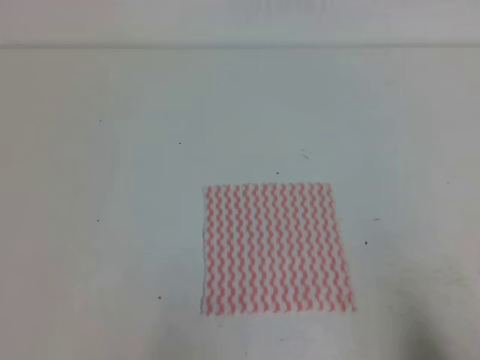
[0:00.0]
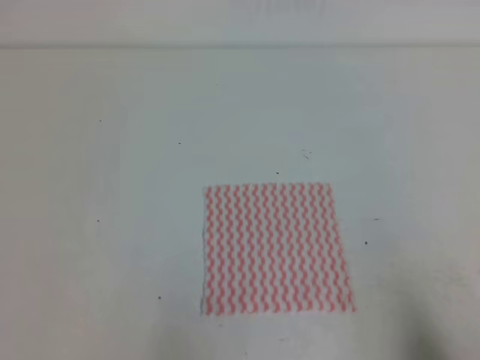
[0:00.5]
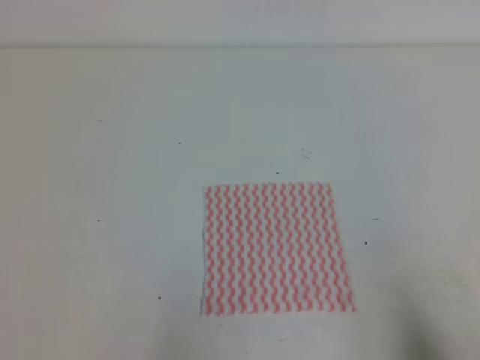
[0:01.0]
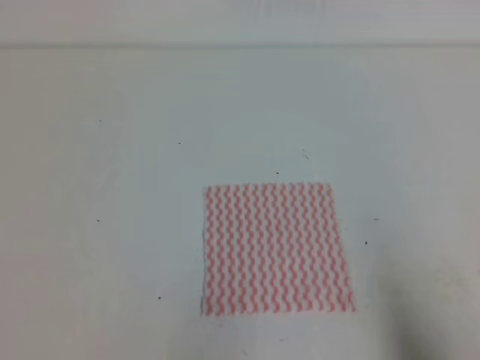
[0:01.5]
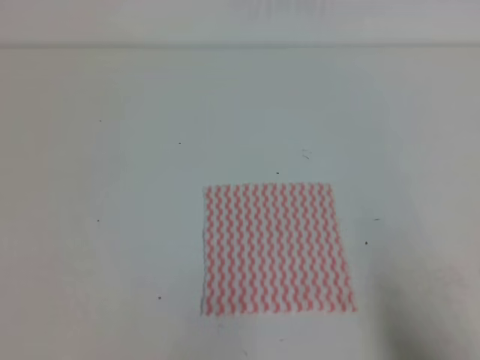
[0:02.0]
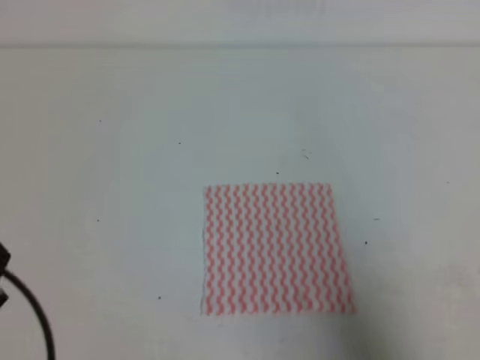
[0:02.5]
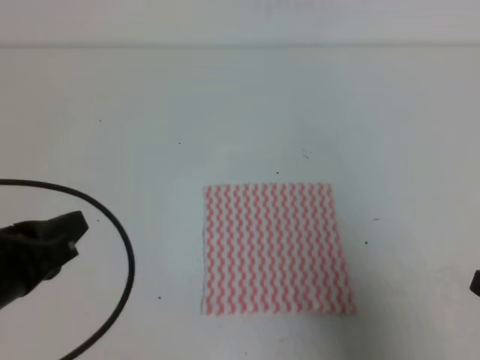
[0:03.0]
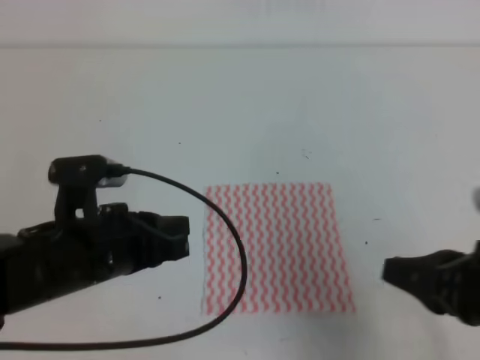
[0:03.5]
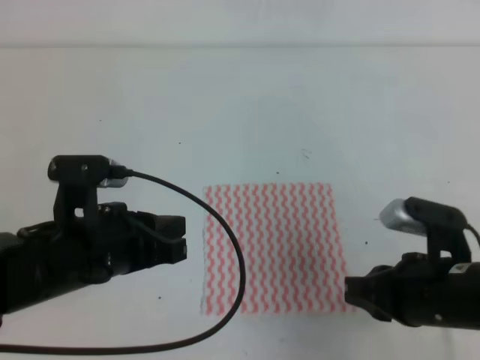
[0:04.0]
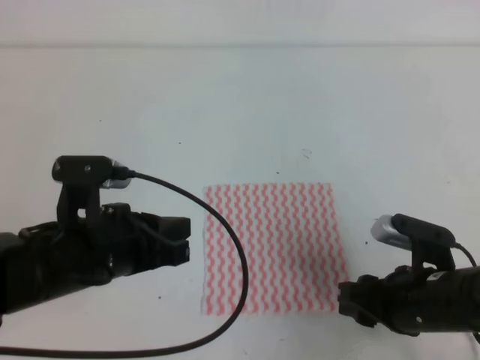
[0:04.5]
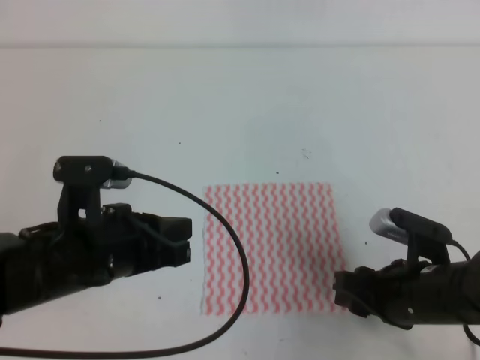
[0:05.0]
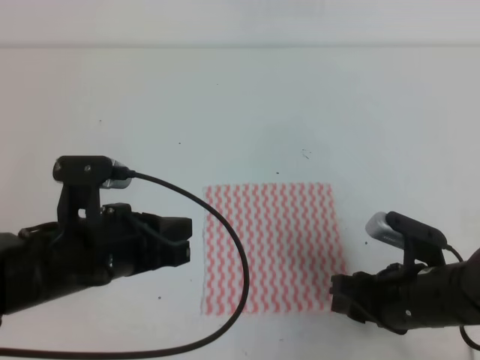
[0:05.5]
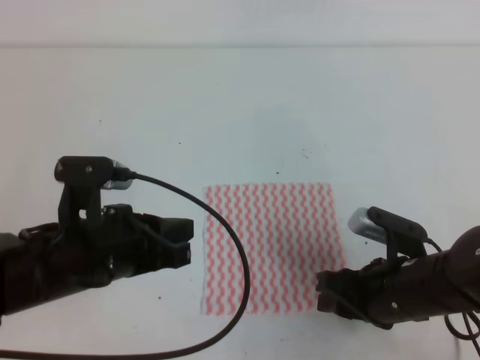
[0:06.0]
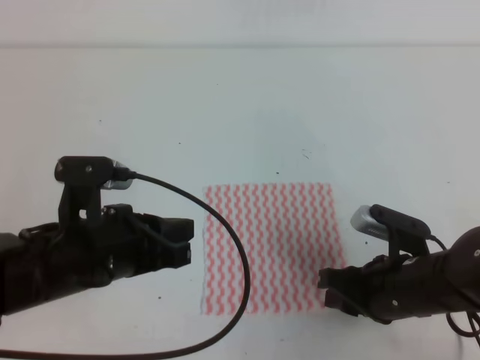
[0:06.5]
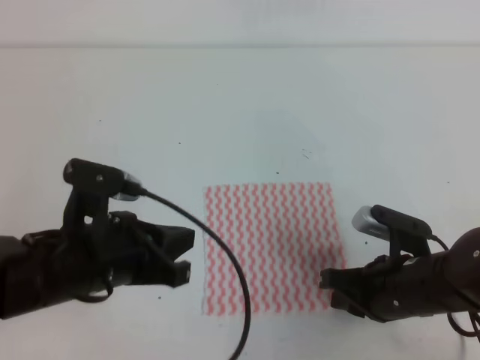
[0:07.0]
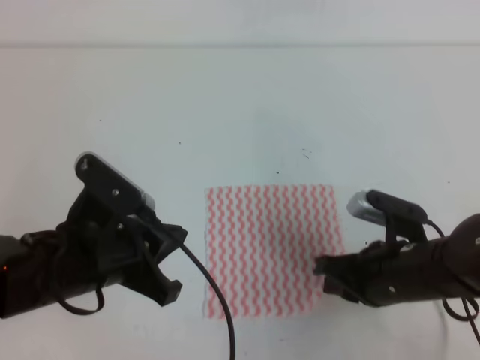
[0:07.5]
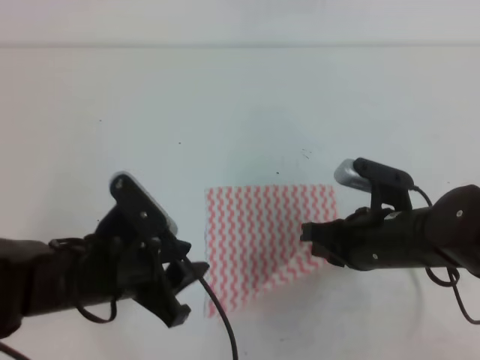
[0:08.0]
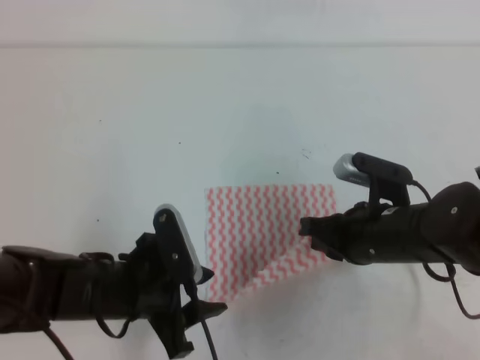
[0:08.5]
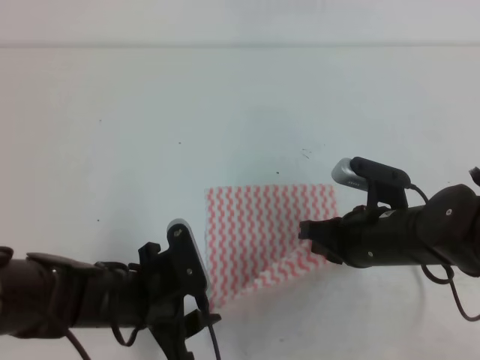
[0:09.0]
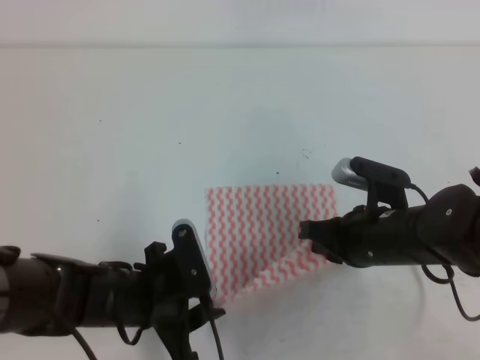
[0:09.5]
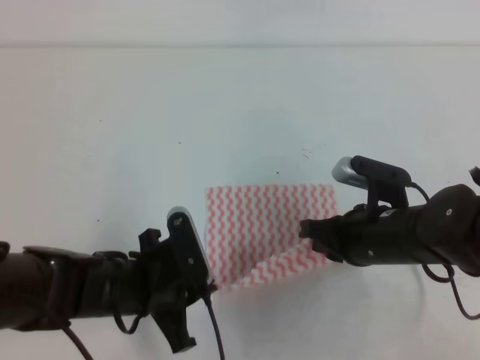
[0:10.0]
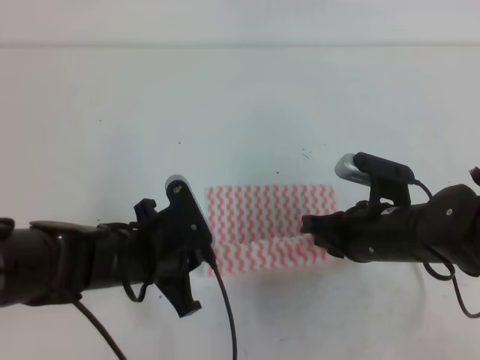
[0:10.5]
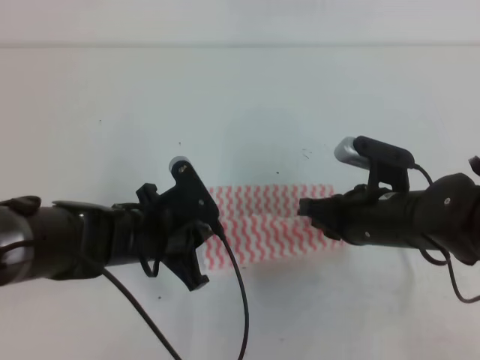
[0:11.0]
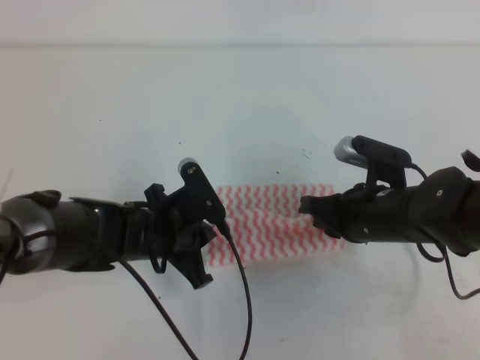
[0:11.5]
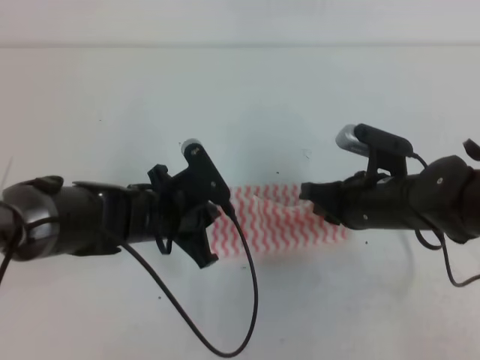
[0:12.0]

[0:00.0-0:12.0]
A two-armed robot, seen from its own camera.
0:02.0 to 0:04.0: The left gripper goes roughly 20 cm forward and to the right. The right gripper is displaced forward and to the left by about 20 cm.
0:04.0 to 0:06.0: The right gripper goes about 5 cm downward, and opens up.
0:06.0 to 0:08.0: The left gripper opens up. Meanwhile the right gripper shifts by about 5 cm, and closes its fingers.
0:08.0 to 0:10.0: The left gripper moves about 5 cm, and closes up.
0:10.0 to 0:12.0: The left gripper goes some 10 cm forward.

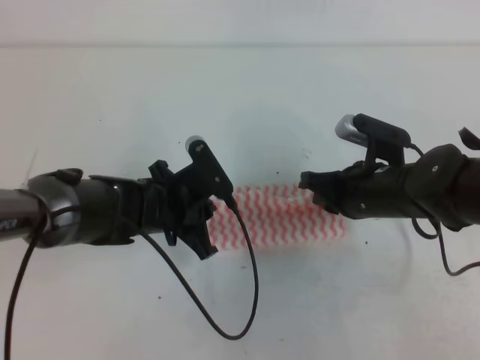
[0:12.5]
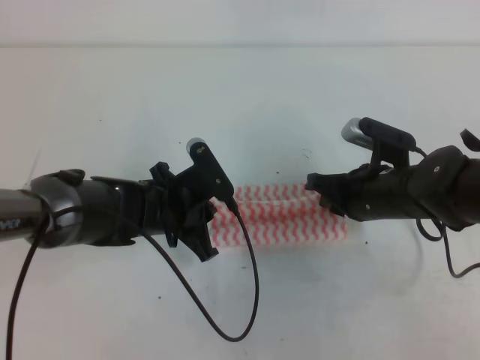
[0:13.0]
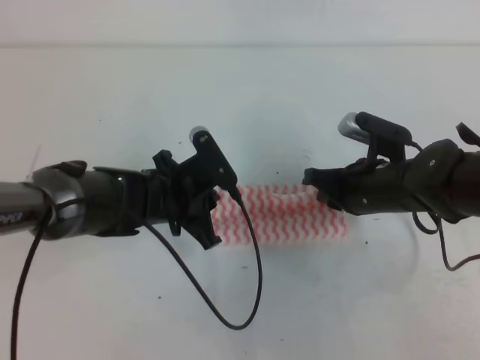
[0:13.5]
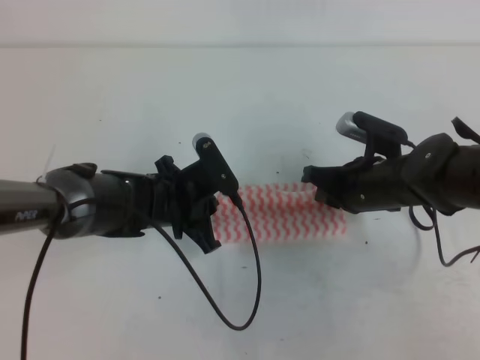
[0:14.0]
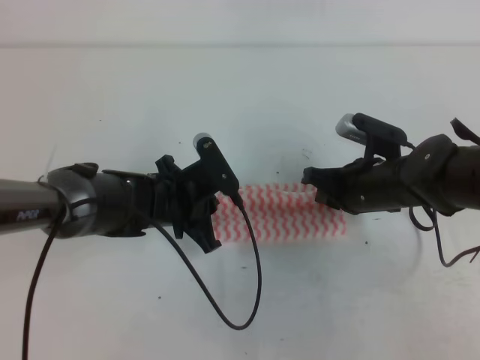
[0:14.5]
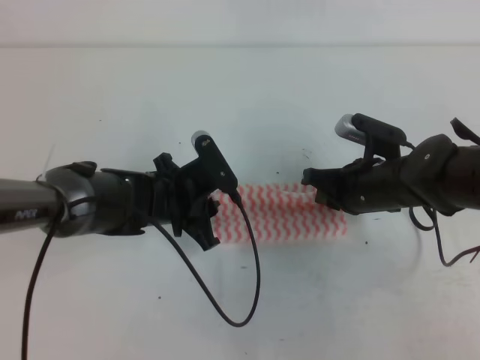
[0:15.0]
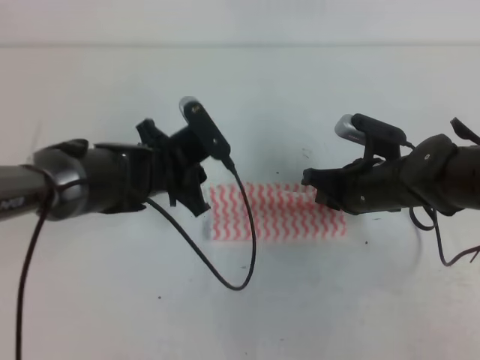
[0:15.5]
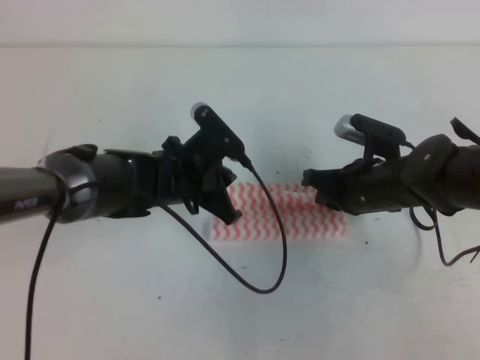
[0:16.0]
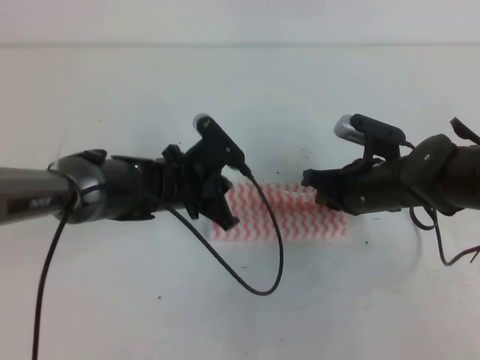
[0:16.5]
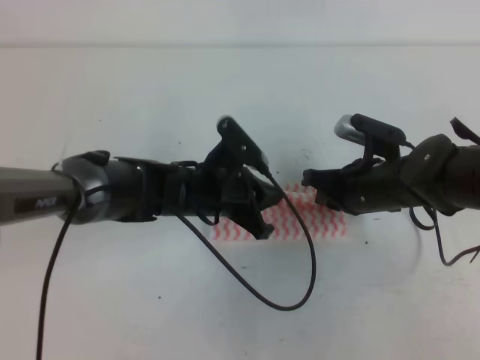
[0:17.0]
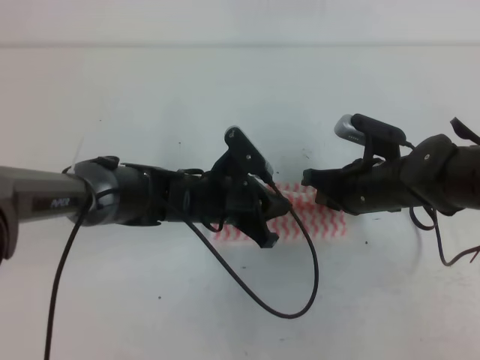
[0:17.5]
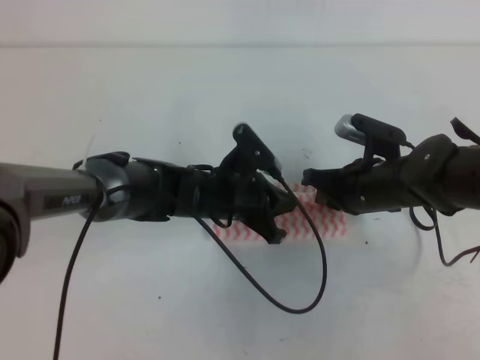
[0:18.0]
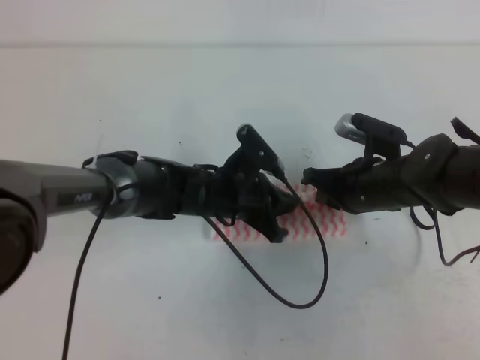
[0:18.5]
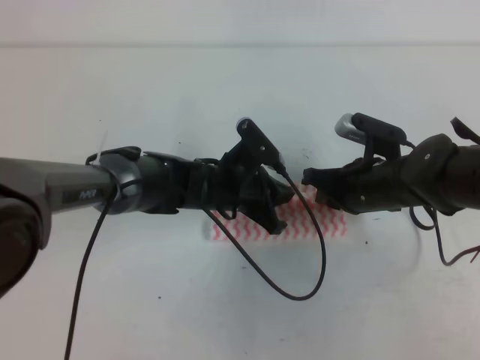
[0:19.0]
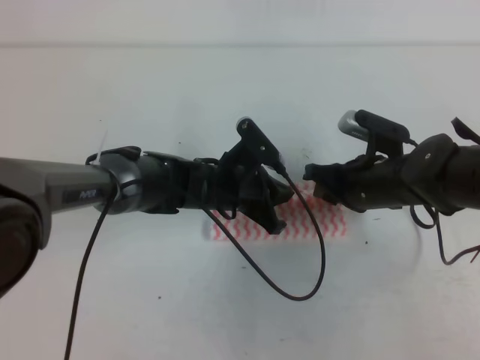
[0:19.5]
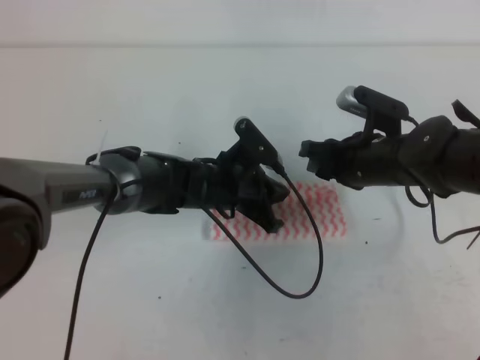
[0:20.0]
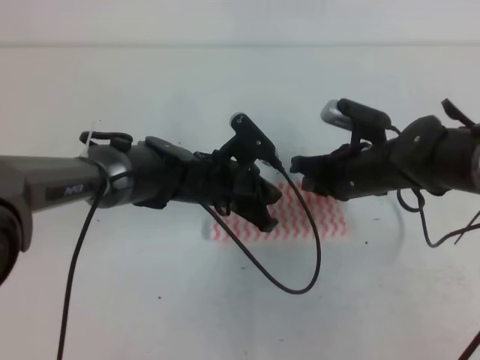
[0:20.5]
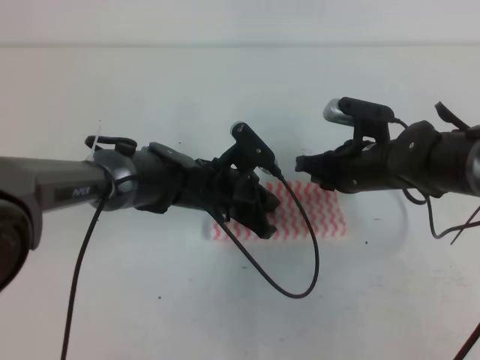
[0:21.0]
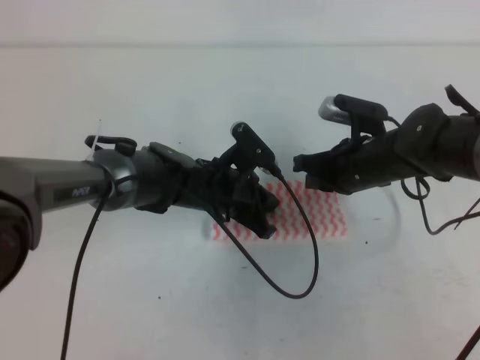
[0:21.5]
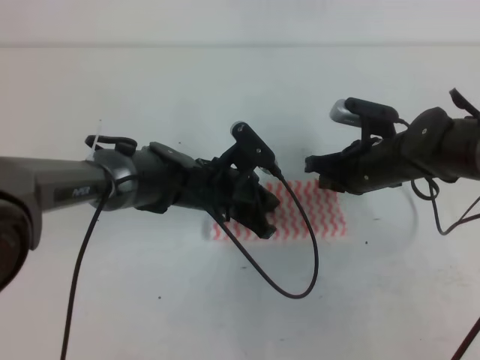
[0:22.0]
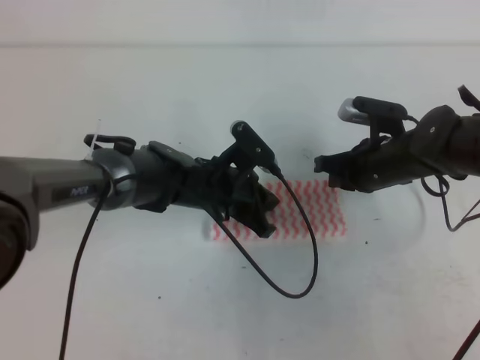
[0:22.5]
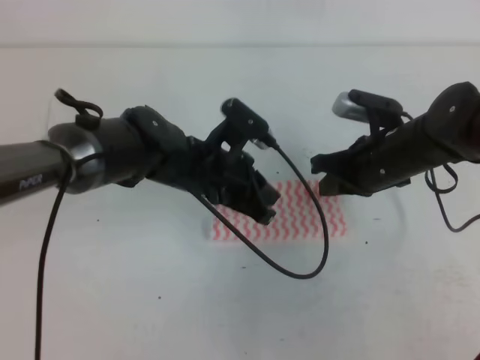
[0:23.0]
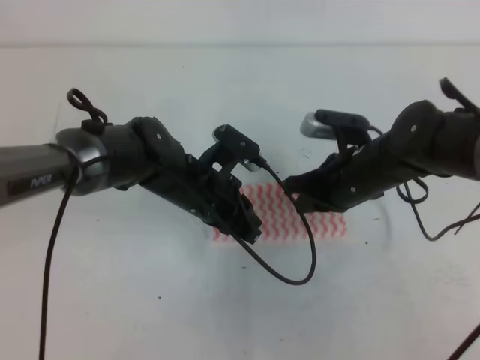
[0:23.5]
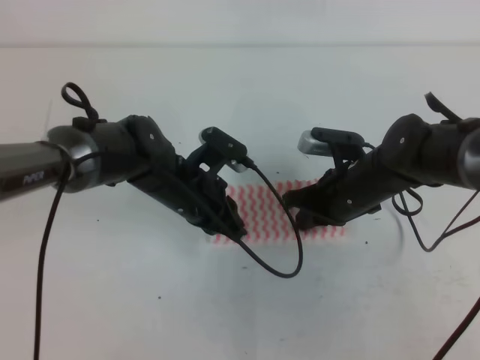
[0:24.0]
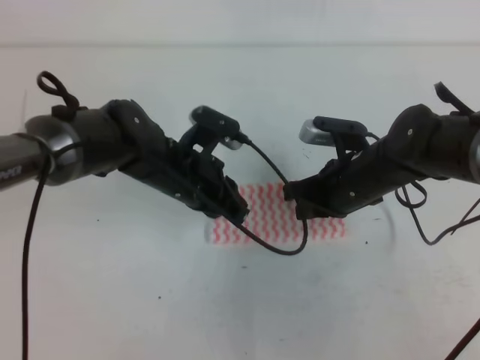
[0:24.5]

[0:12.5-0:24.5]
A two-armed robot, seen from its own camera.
0:12.5 to 0:14.5: The grippers make only small movements.
0:14.5 to 0:16.5: The left gripper opens, then closes once more.
0:16.5 to 0:18.5: The left gripper moves about 5 cm.
0:18.5 to 0:20.5: The right gripper opens, then closes again.
0:20.5 to 0:22.5: The grippers stay close to where they were, moving slightly.
0:22.5 to 0:24.5: The left gripper shifts by about 5 cm; the right gripper changes place by about 5 cm.

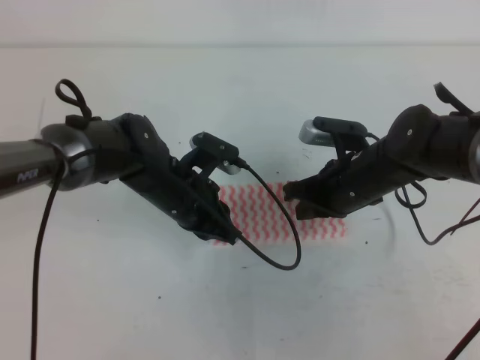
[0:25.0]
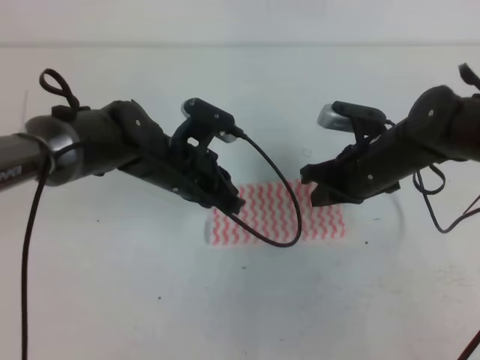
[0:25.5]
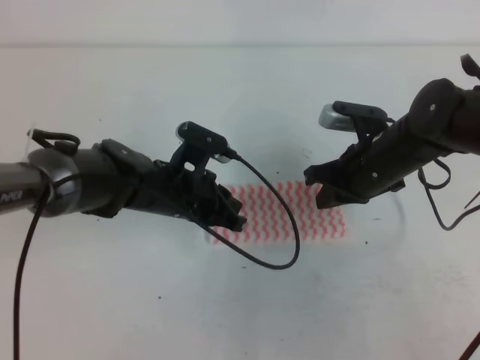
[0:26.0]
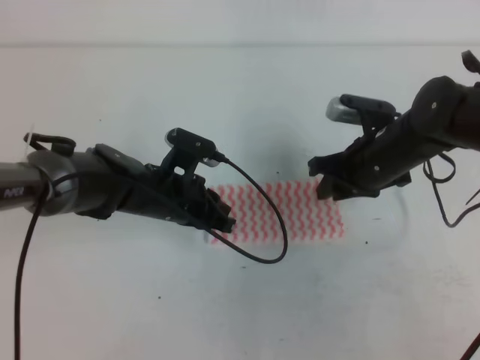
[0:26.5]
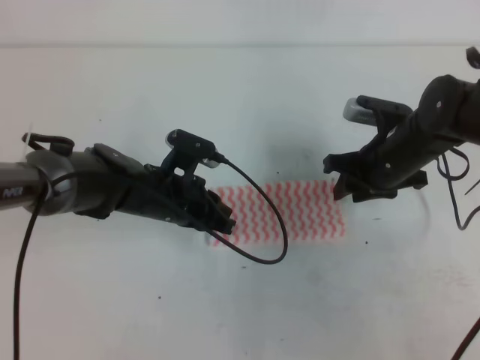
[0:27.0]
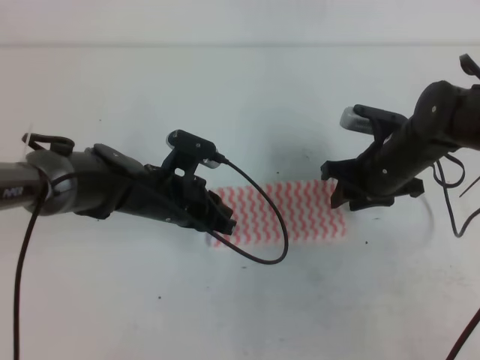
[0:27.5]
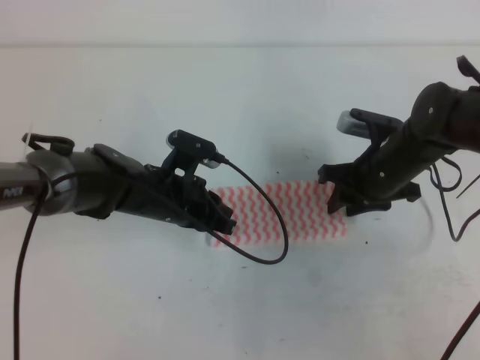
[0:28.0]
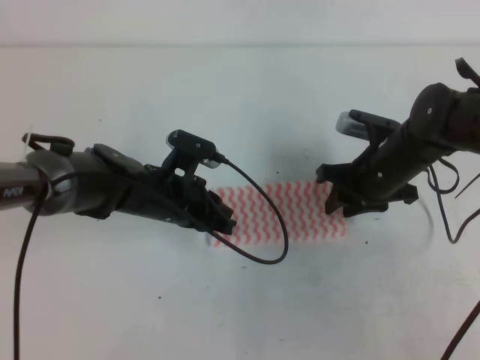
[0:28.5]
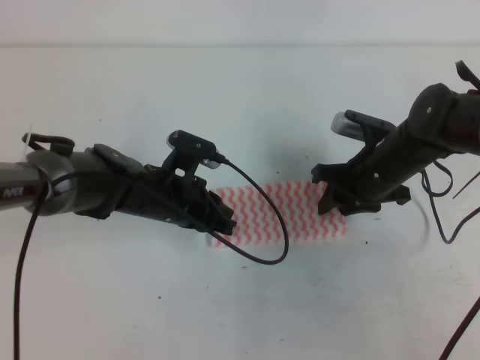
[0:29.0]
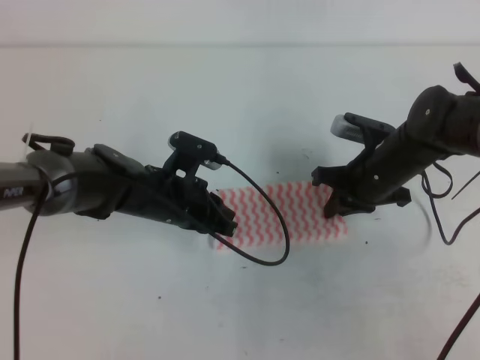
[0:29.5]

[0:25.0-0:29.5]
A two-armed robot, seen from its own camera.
0:25.0 to 0:27.0: The right gripper shifts by some 5 cm, and opens.
0:27.0 to 0:29.5: The right gripper closes up.
